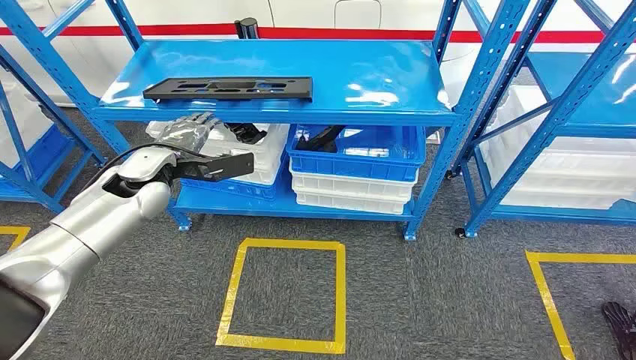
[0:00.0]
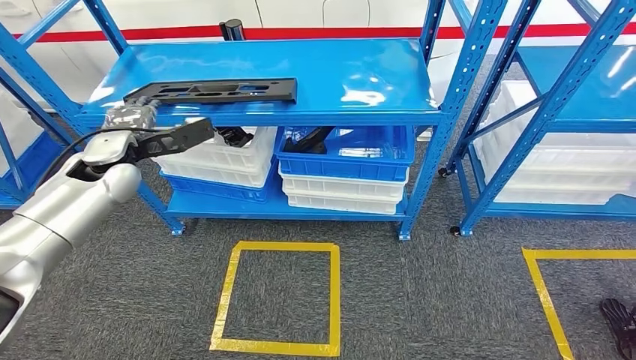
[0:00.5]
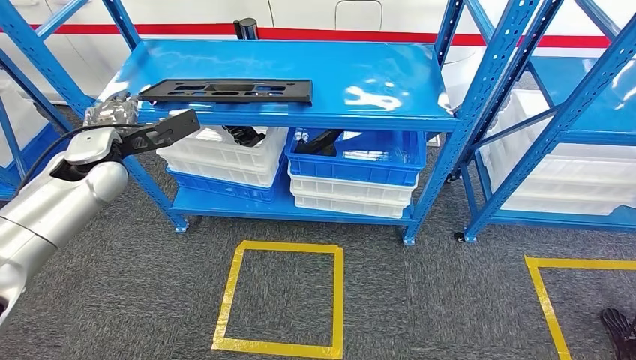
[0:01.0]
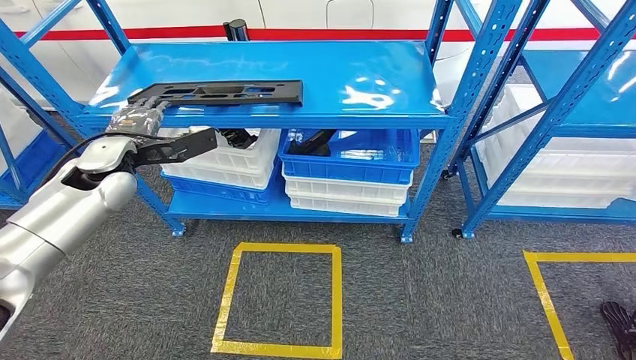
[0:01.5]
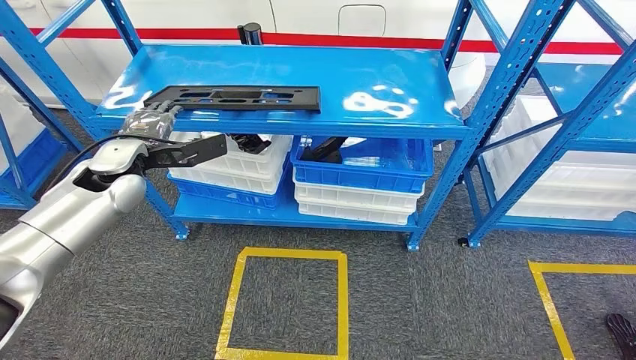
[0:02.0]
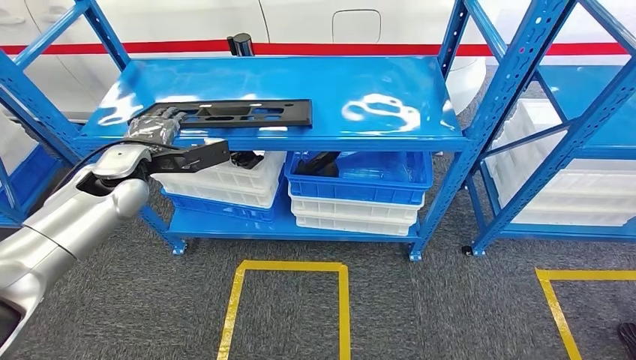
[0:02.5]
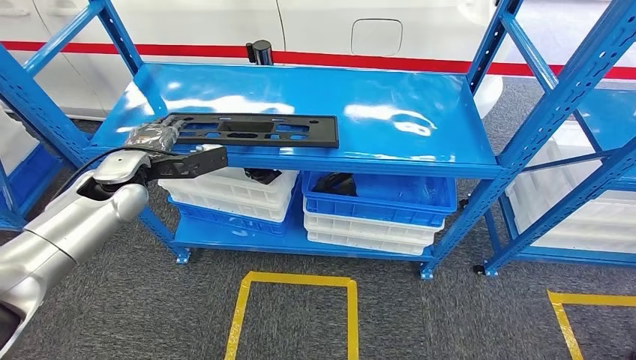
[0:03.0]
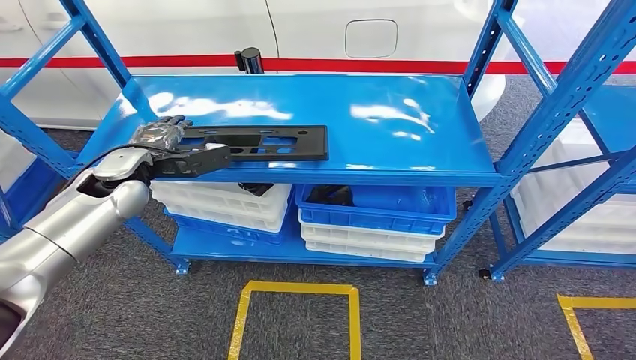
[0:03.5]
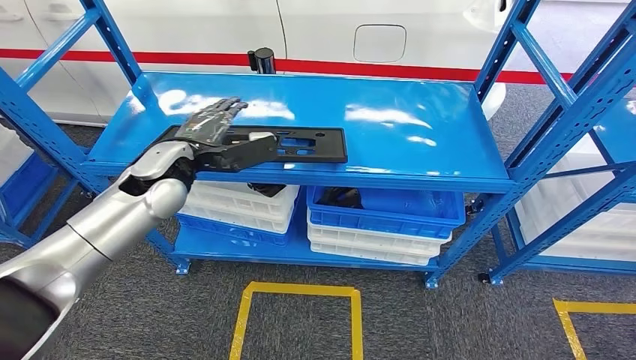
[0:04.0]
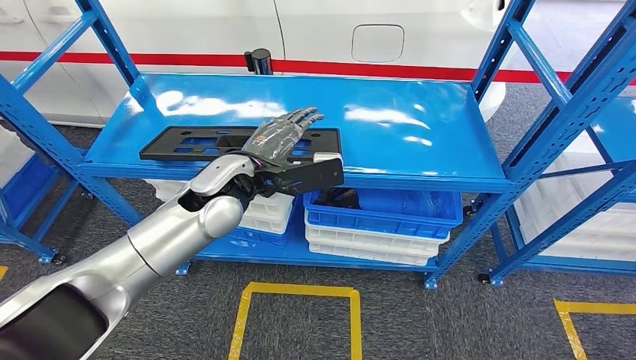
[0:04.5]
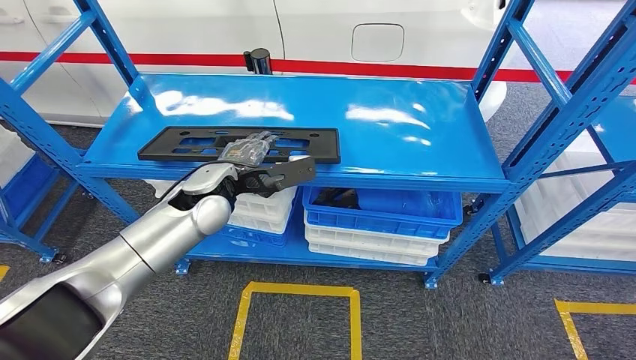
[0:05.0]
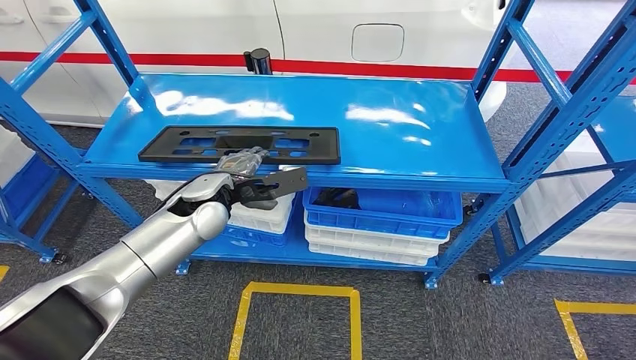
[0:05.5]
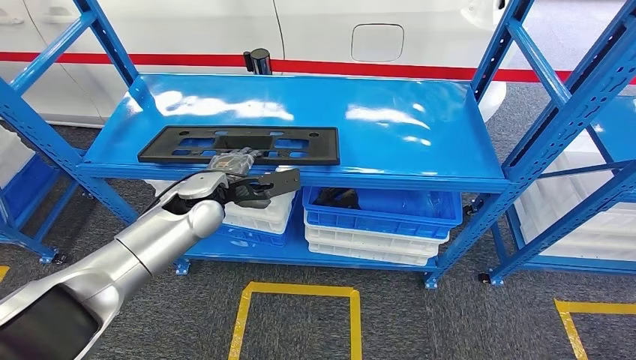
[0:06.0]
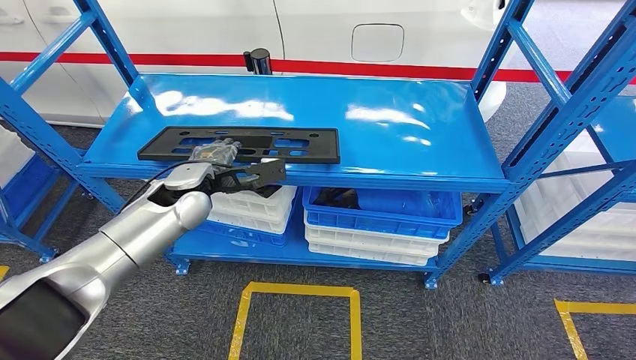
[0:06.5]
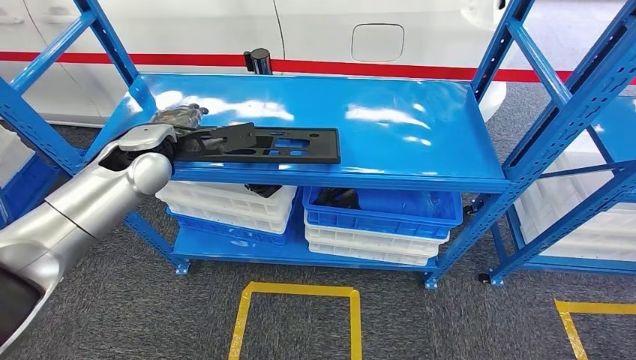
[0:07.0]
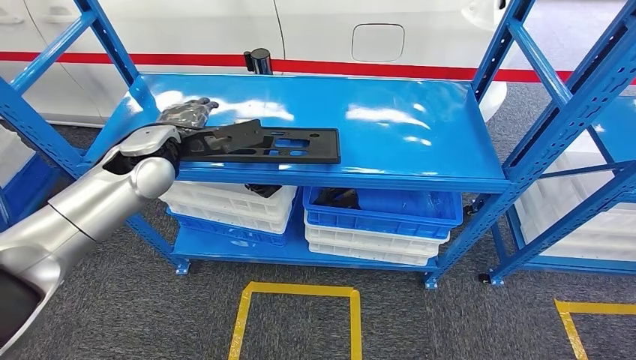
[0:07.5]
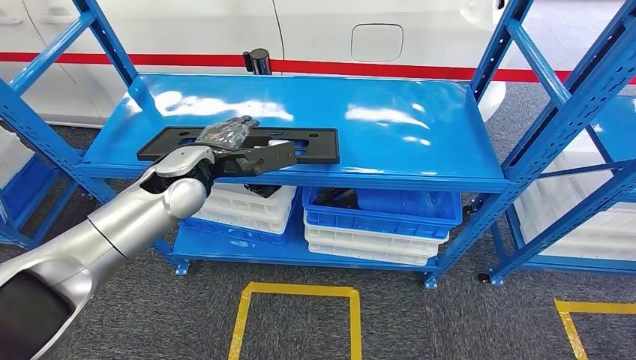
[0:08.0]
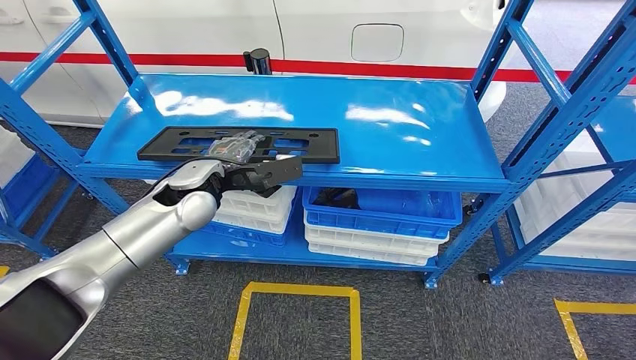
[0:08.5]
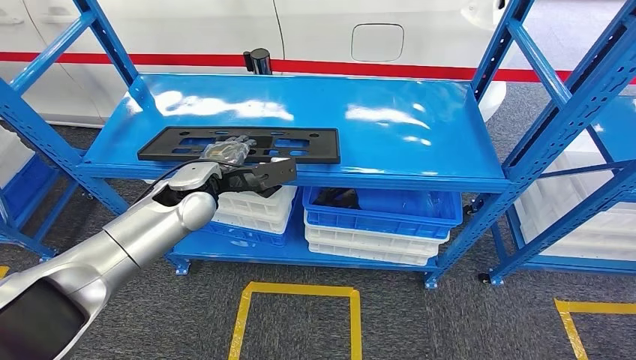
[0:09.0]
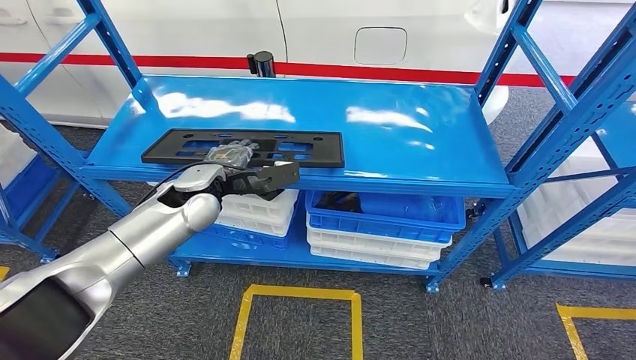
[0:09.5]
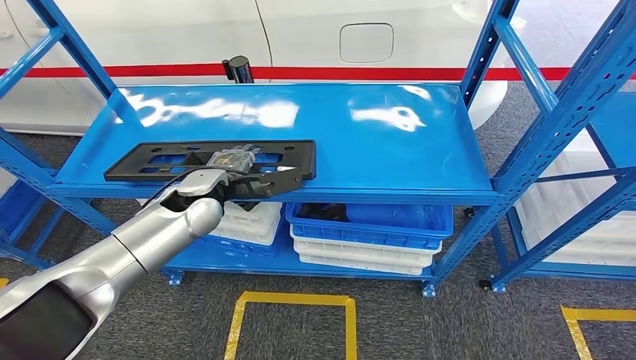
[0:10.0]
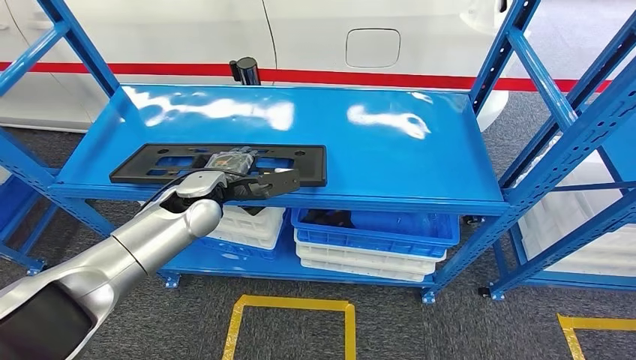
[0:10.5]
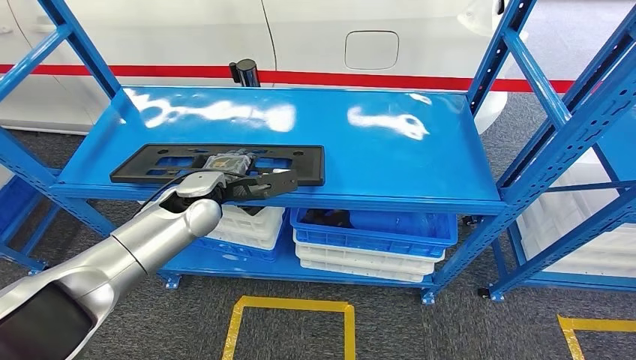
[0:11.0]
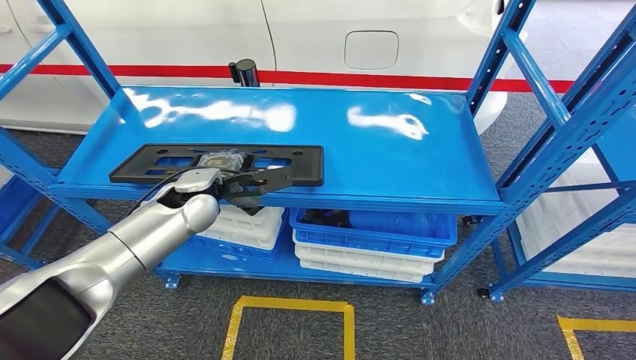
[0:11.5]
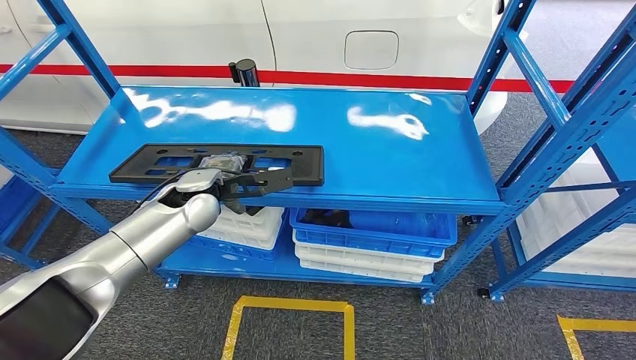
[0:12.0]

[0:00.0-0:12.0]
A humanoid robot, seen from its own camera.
0:06.0 to 0:08.0: The left hand heads upward, covering approximately 5 cm.

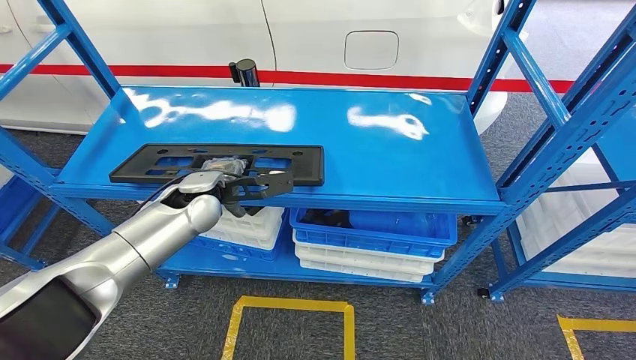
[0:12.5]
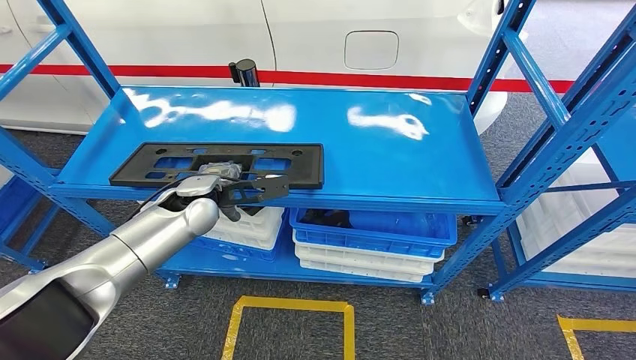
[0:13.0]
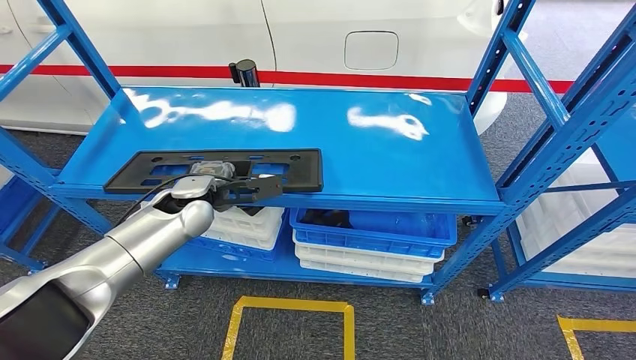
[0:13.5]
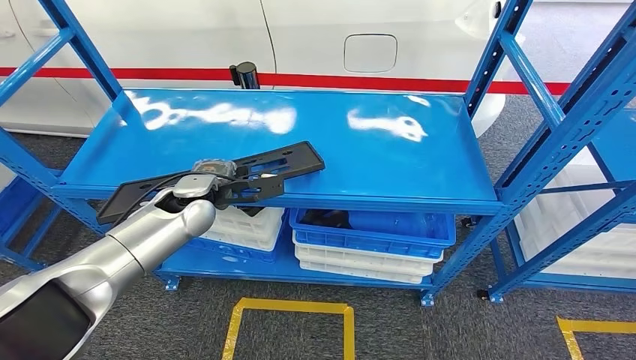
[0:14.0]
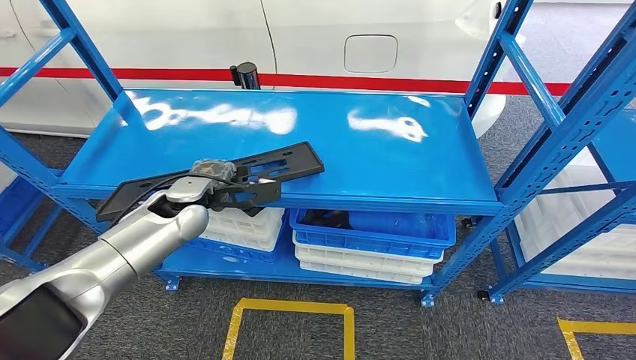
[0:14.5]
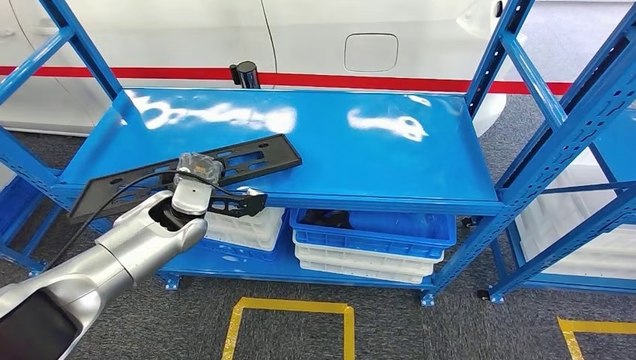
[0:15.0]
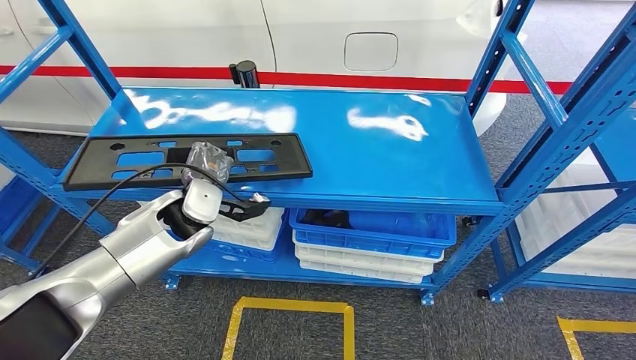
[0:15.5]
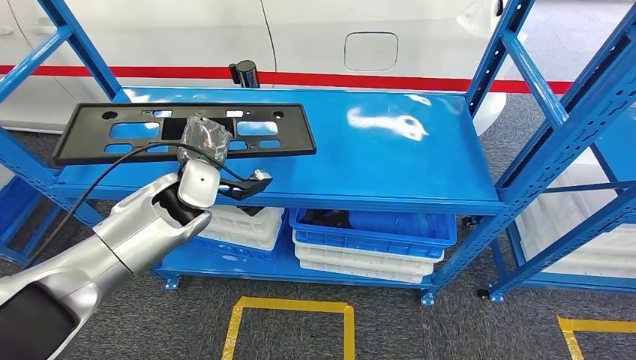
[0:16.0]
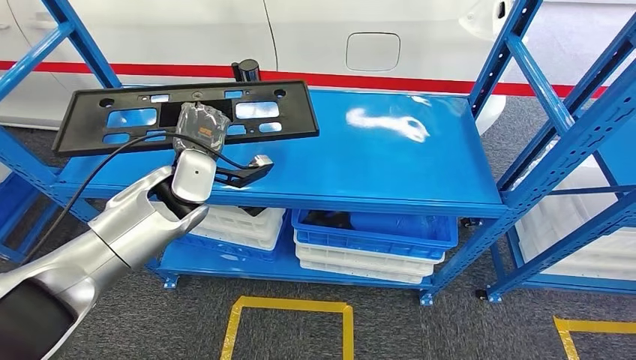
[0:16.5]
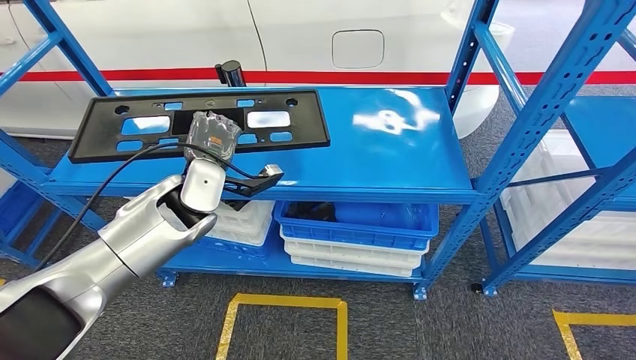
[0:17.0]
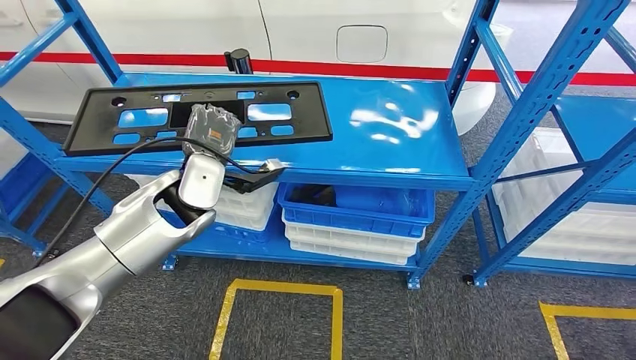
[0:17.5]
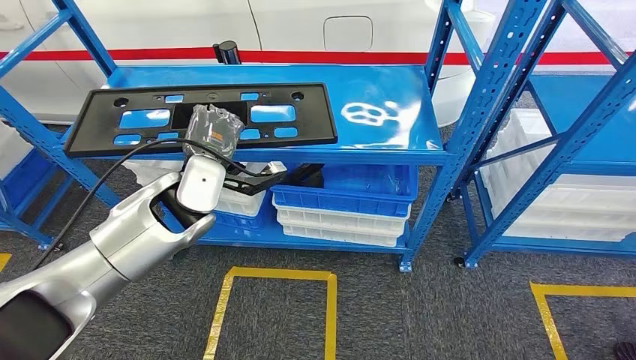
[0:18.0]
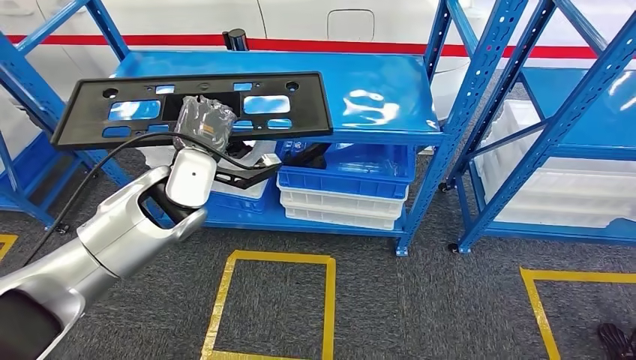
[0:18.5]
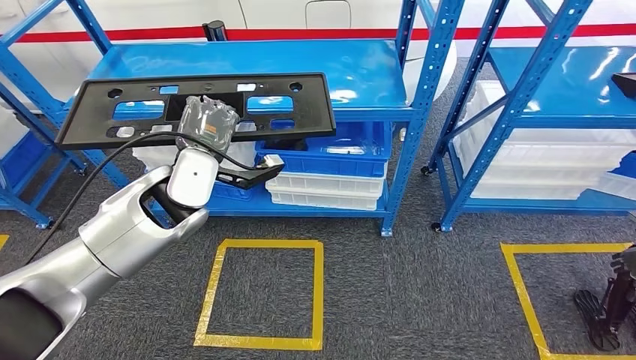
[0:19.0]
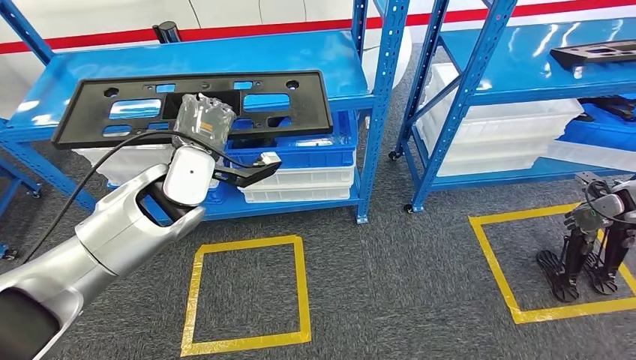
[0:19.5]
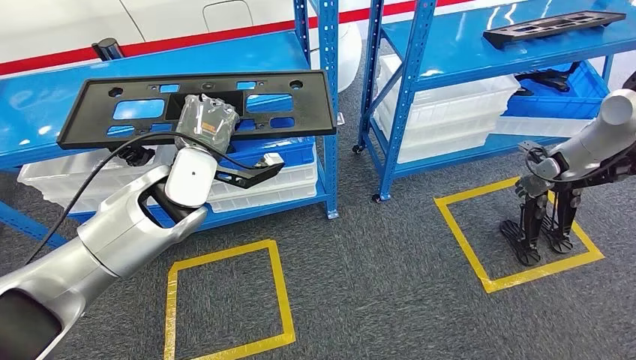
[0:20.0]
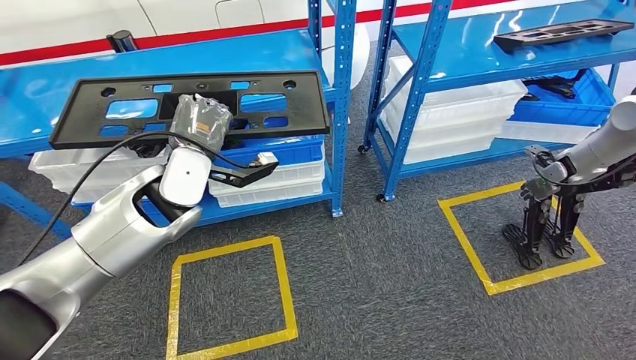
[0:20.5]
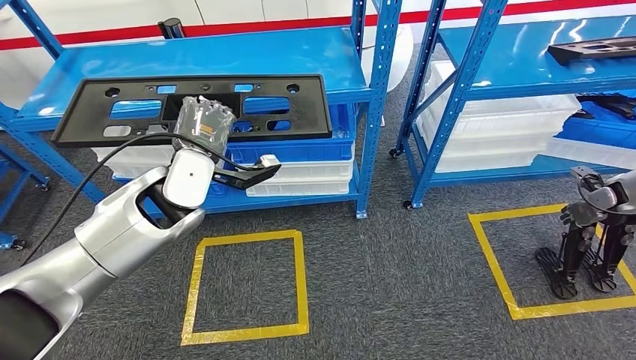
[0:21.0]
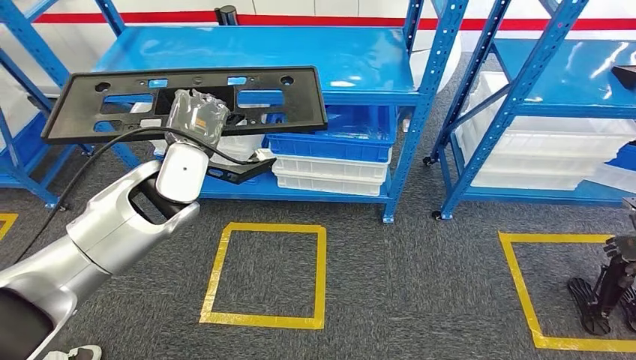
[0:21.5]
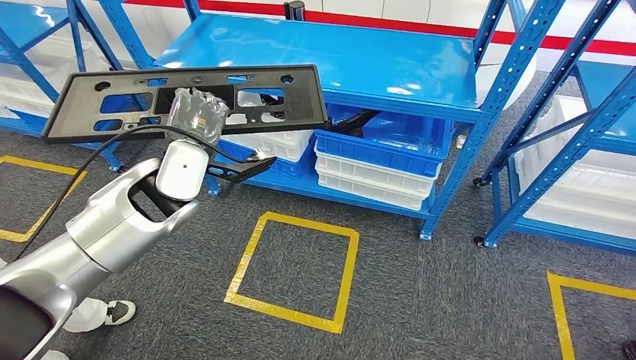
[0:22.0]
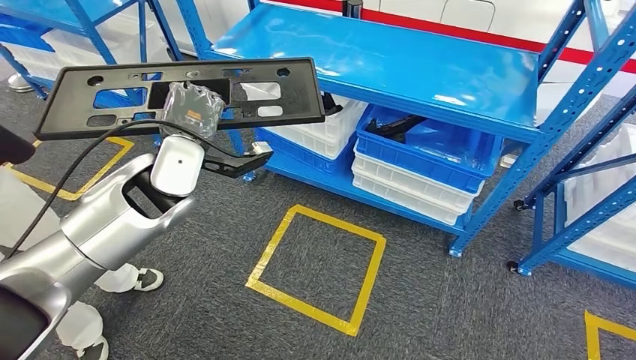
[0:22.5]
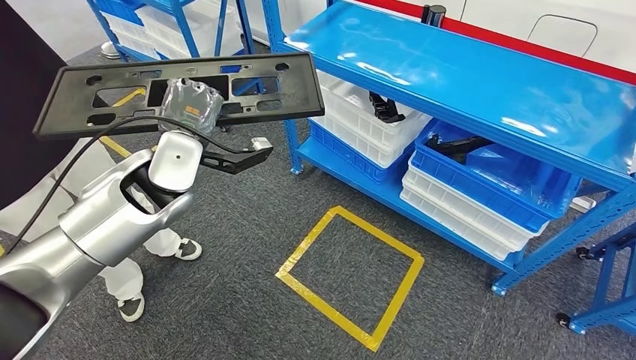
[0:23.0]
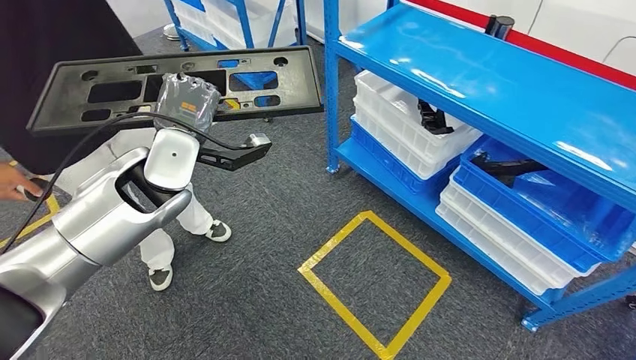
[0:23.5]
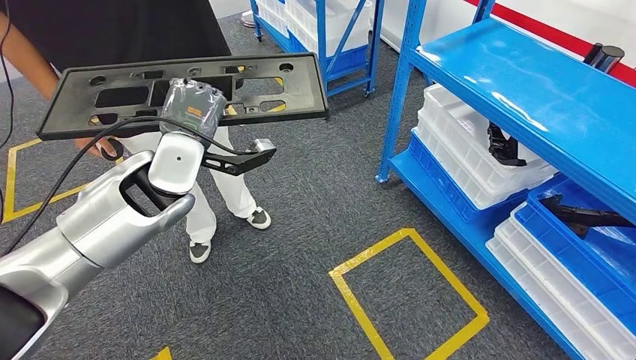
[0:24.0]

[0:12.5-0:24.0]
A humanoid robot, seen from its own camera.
Step, 0:12.5 to 0:16.0: Pick up the large material from the shelf.
0:12.5 to 0:14.5: The hands move only a little.
